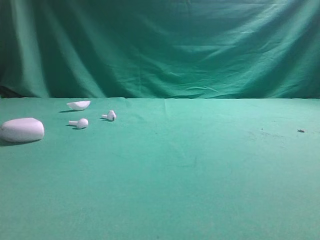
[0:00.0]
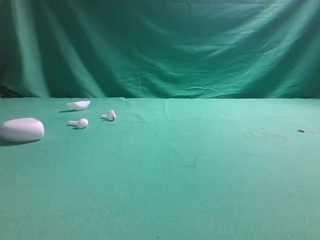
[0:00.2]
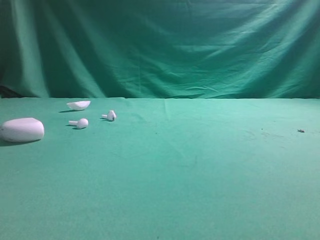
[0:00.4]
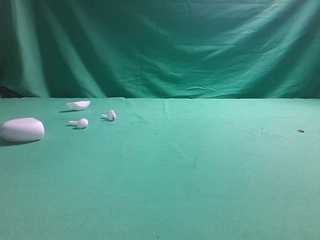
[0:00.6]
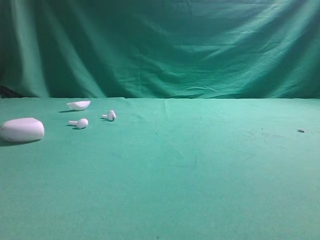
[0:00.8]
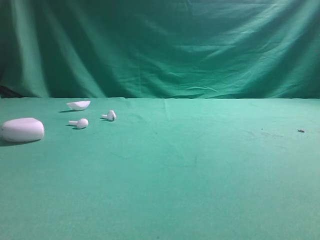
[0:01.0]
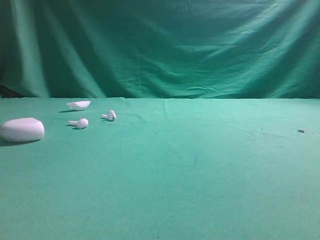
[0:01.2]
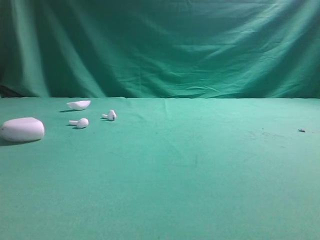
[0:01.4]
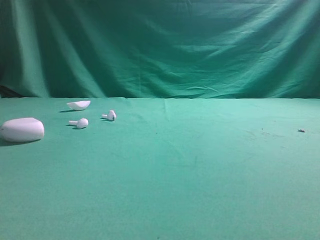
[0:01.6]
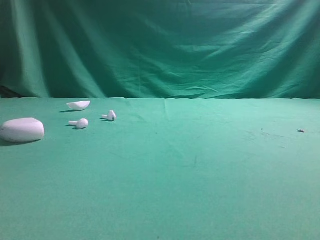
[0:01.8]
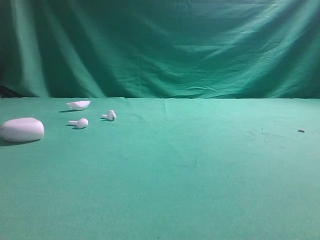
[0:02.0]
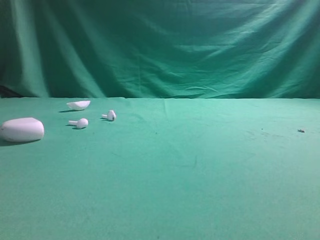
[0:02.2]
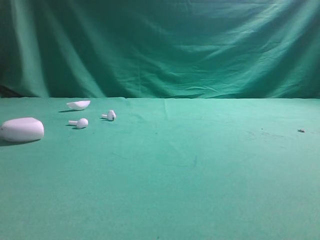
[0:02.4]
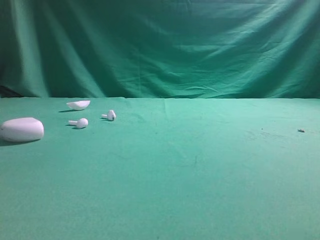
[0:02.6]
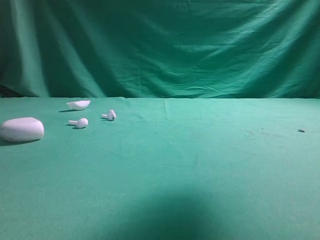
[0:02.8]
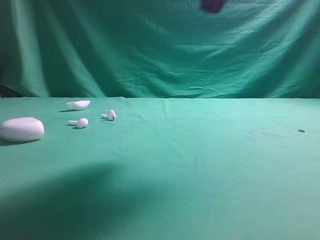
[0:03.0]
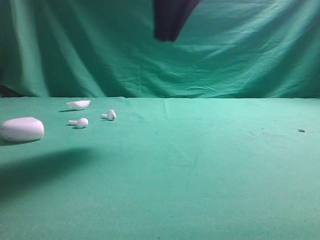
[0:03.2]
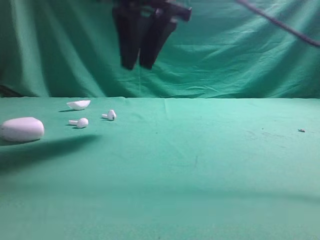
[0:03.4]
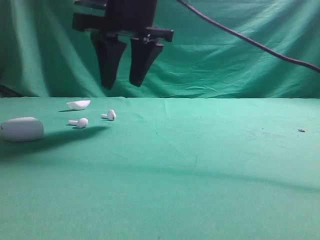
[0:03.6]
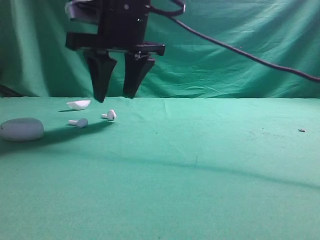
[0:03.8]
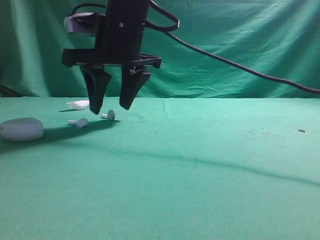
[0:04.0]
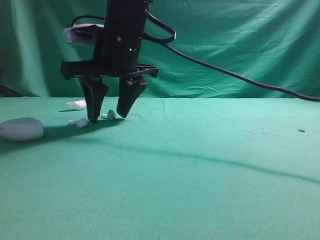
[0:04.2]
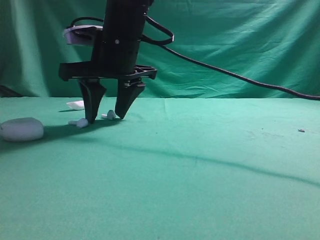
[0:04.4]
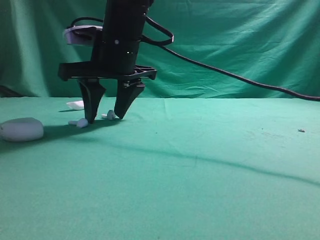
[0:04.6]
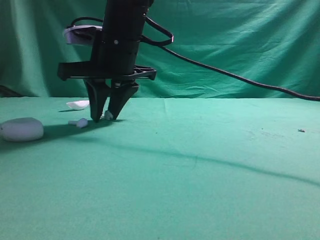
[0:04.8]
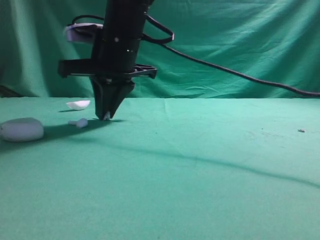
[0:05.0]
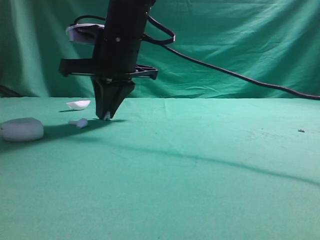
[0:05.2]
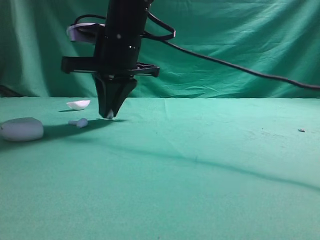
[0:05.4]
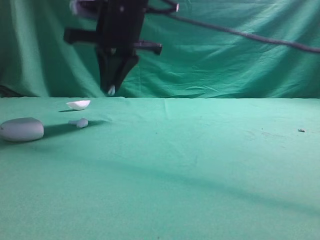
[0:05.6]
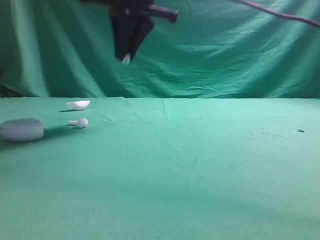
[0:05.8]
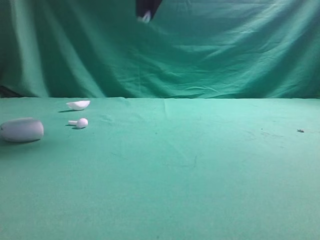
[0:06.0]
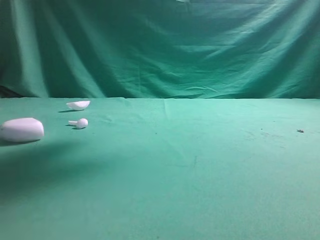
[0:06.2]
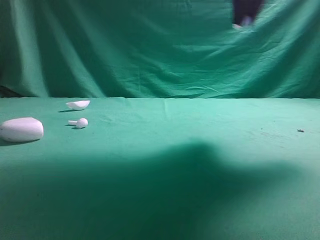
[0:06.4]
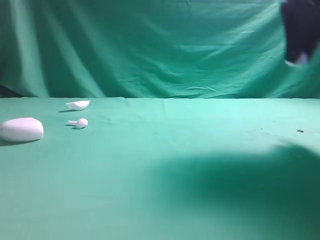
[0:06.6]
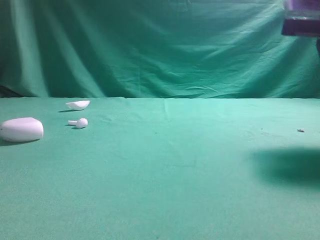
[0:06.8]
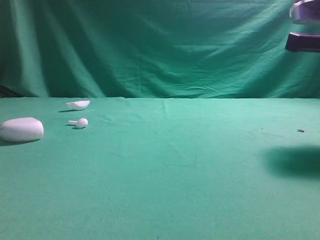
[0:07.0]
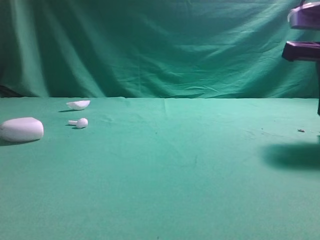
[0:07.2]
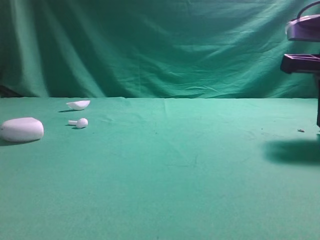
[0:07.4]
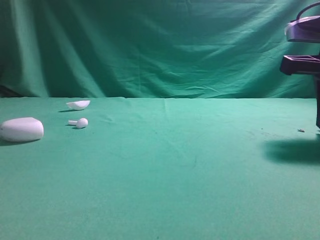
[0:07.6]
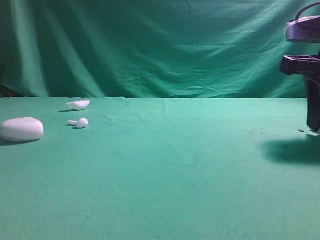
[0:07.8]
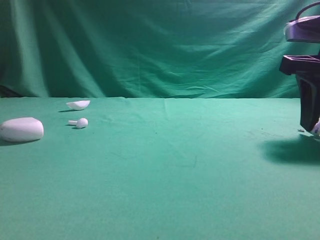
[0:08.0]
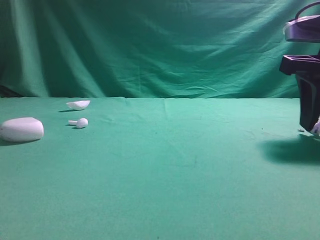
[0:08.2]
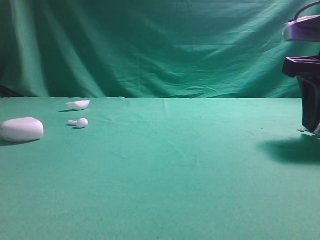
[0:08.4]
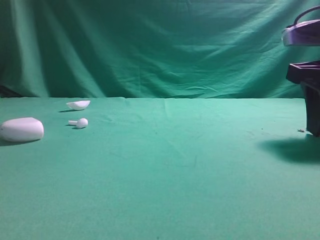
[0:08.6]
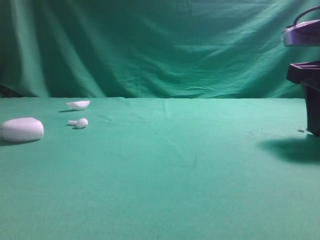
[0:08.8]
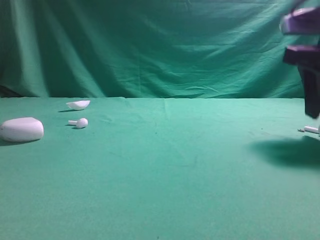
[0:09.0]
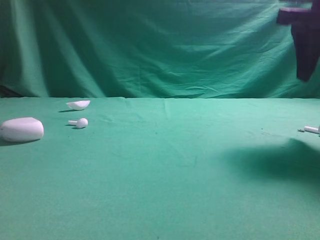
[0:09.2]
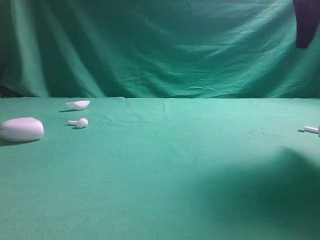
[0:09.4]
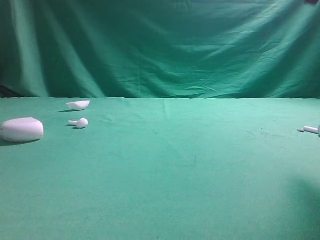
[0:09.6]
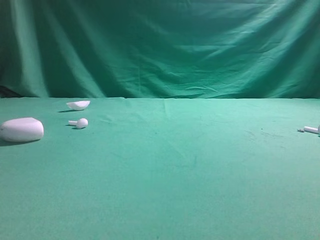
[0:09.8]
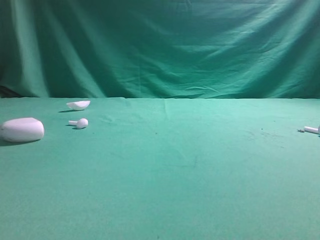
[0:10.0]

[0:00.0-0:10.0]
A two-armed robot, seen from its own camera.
Step, 0:00.0 to 0:05.8: Grasp the Bluetooth earbud.
Step, 0:06.0 to 0:09.2: Place bluetooth earbud on the right side of the table.

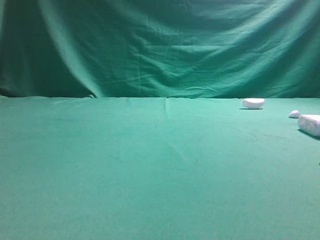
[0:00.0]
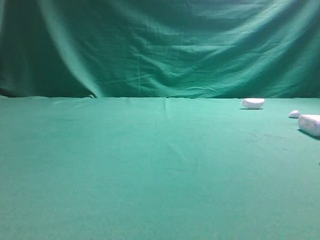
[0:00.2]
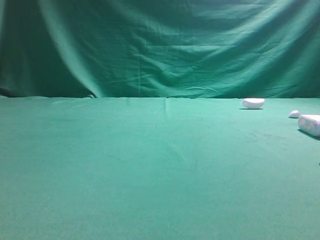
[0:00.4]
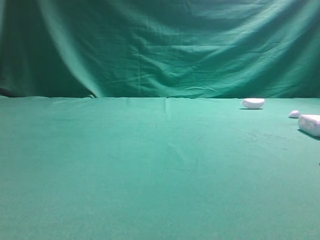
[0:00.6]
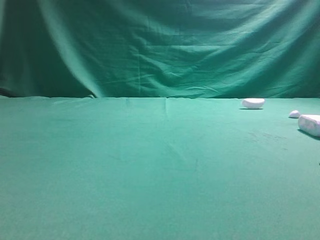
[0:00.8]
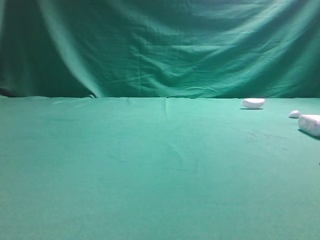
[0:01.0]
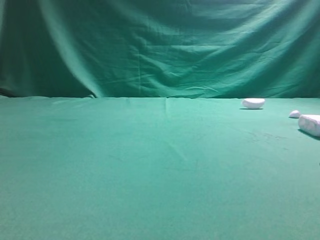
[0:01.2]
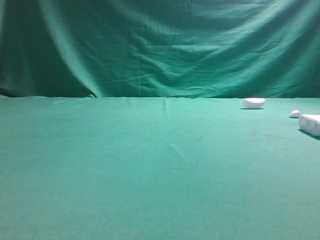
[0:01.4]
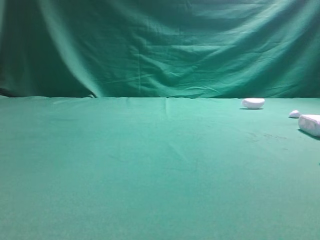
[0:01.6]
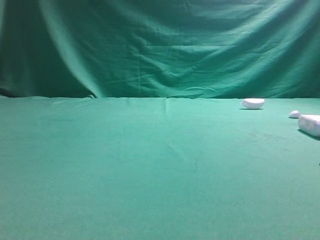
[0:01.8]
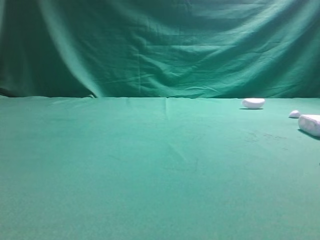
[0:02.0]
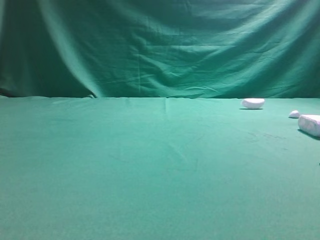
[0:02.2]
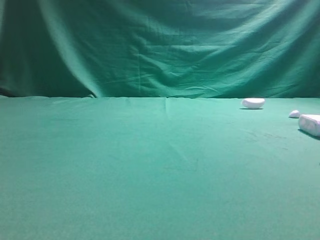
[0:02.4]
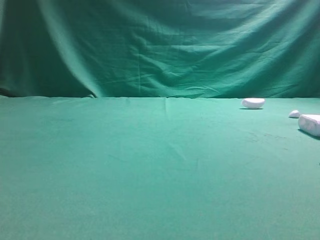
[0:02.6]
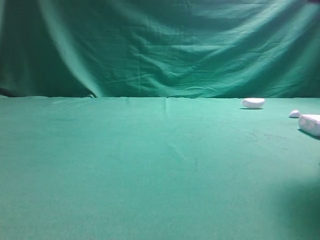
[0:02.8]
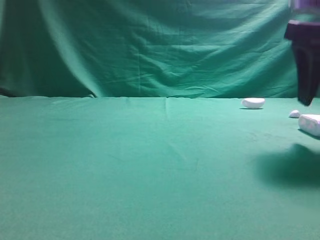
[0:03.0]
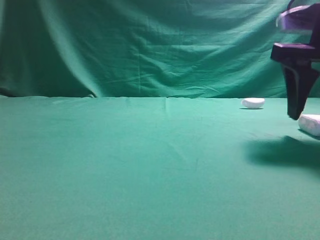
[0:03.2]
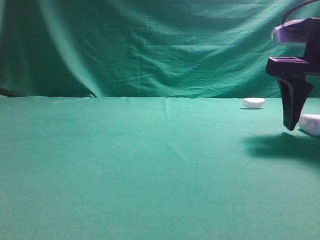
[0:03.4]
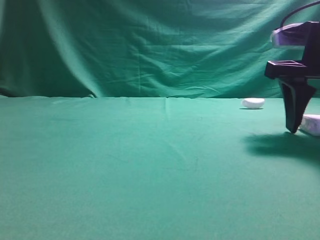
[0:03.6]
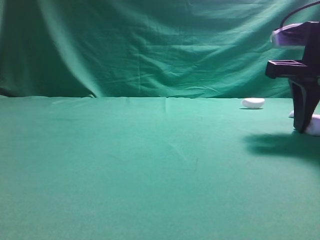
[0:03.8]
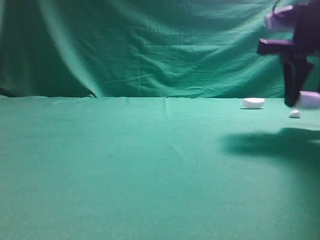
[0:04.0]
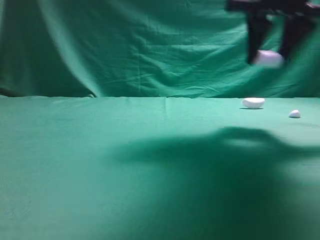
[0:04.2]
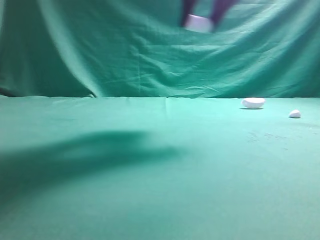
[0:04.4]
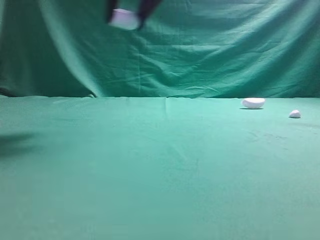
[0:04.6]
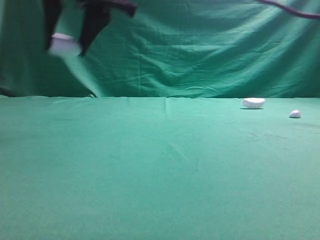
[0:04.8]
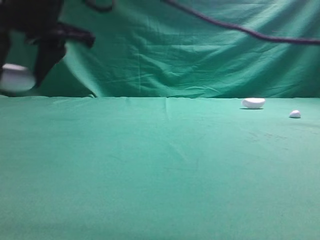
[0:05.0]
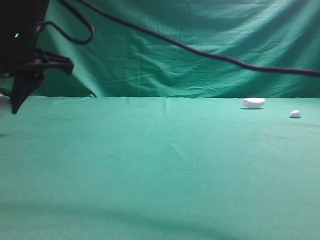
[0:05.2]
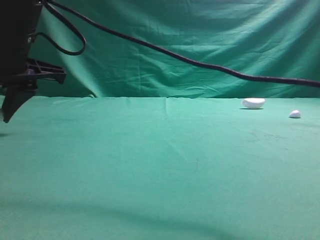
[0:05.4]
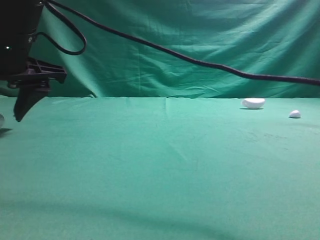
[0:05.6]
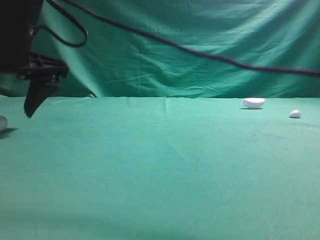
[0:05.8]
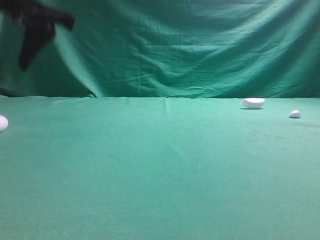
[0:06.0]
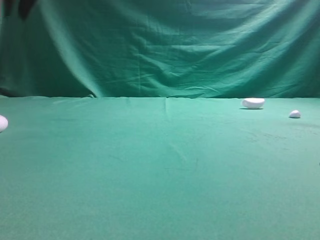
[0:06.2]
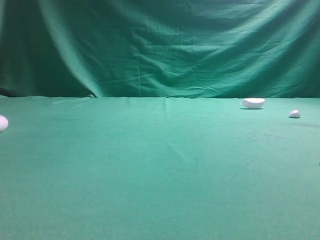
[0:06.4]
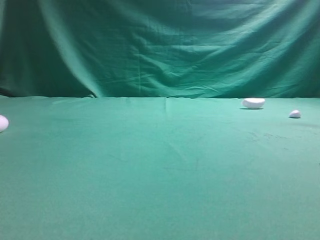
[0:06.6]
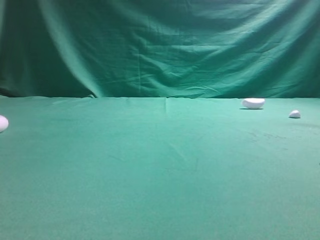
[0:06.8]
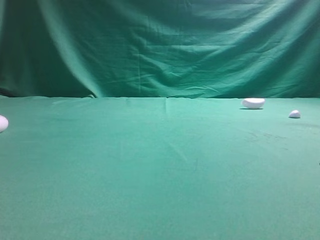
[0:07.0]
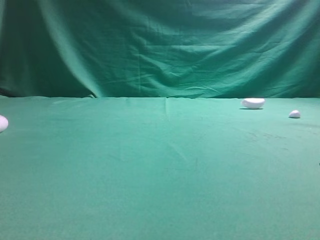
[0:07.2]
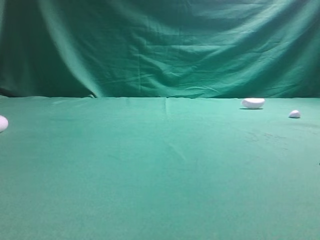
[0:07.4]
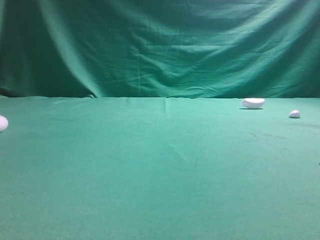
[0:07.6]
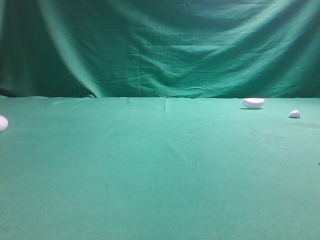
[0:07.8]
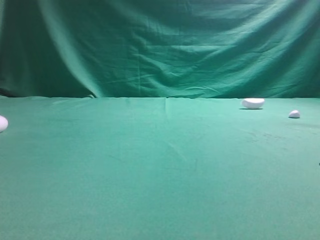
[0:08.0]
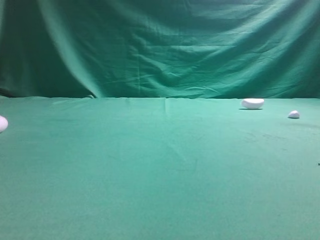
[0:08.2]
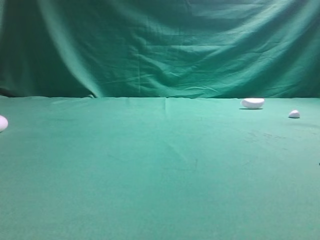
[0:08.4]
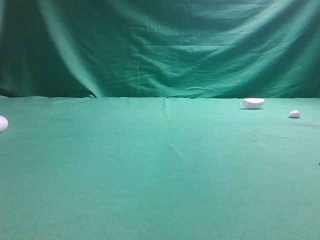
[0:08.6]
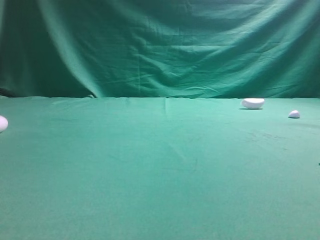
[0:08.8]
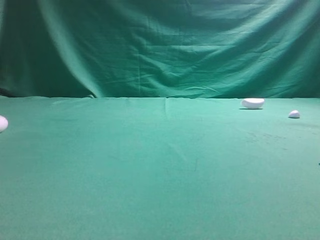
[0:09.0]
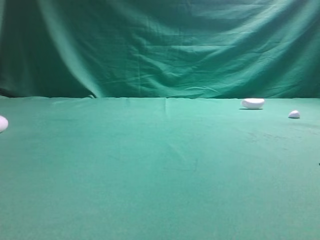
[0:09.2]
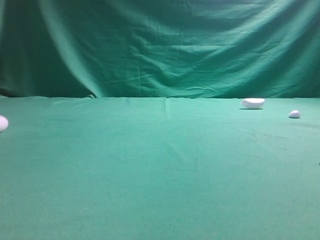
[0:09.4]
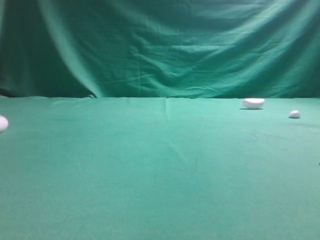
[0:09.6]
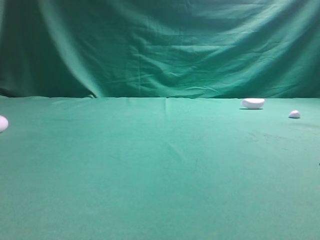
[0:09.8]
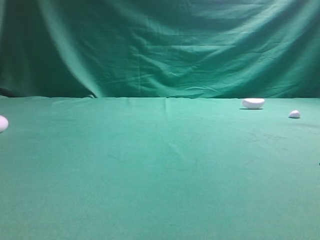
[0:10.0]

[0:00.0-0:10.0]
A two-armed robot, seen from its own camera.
Step, 0:00.0 to 0:04.0: Grasp the Bluetooth earphone case.
Step, 0:04.2 to 0:05.8: Place bluetooth earphone case on the left side of the table.

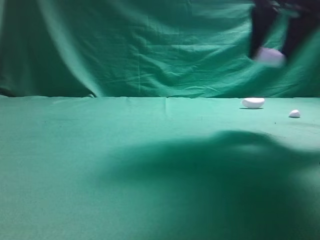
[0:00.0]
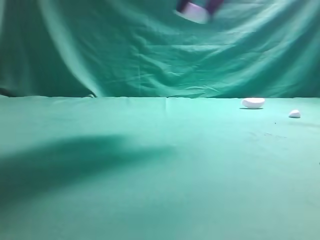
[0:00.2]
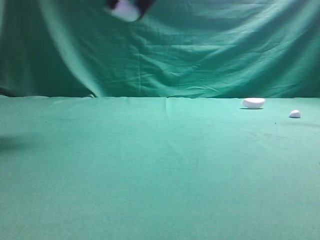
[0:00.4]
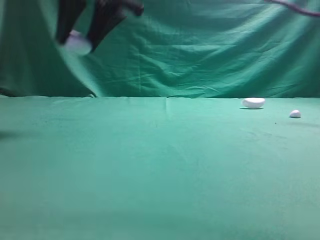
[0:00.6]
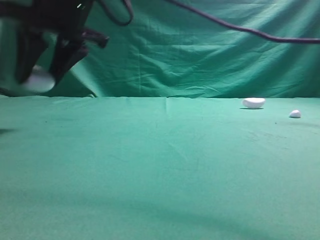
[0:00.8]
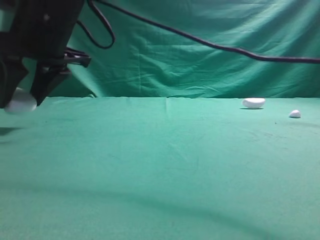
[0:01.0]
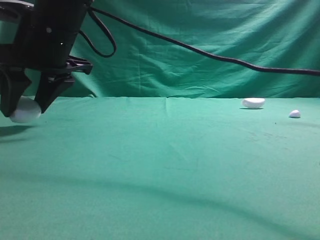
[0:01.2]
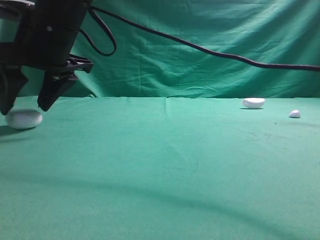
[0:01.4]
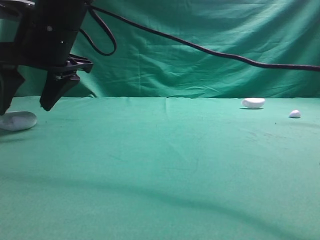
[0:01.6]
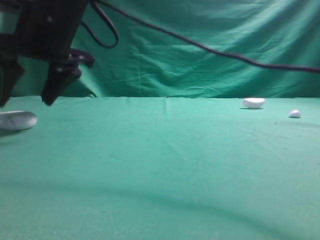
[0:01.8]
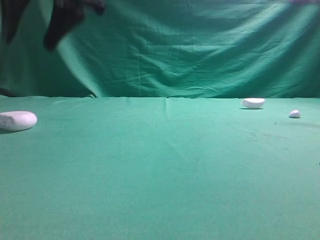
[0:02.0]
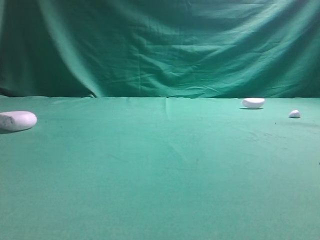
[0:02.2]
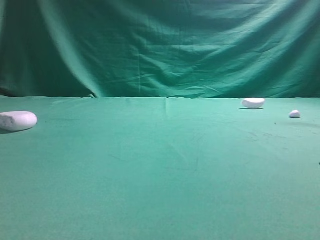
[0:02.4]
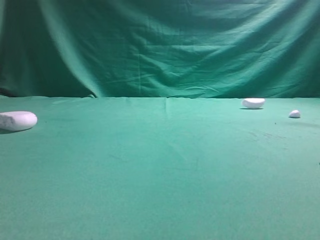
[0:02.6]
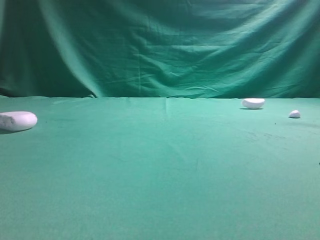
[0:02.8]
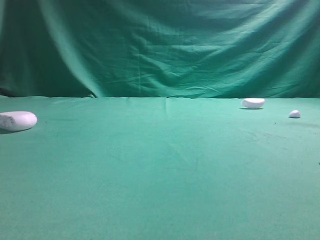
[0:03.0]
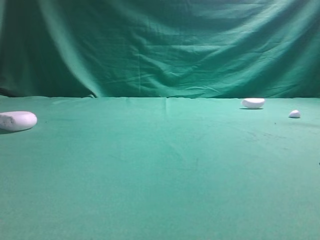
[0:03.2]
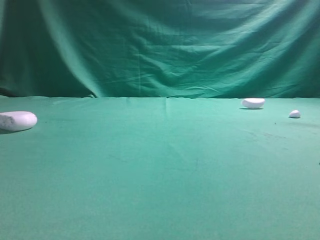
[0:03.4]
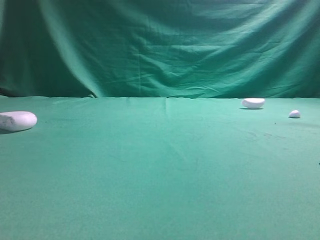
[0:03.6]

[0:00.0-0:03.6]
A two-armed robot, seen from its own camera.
Step, 0:00.0 to 0:01.8: Place bluetooth earphone case on the left side of the table.
